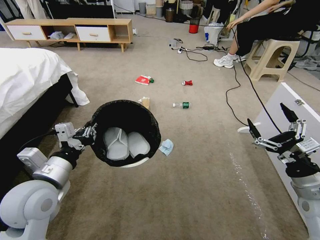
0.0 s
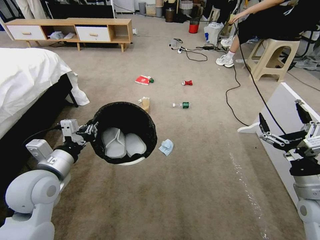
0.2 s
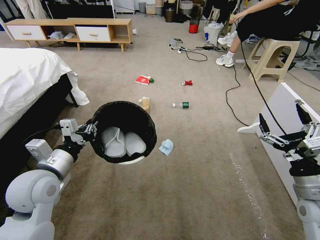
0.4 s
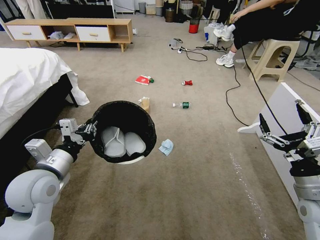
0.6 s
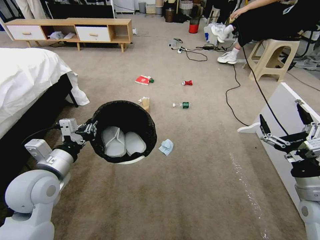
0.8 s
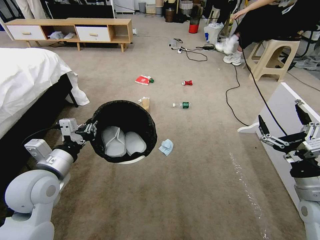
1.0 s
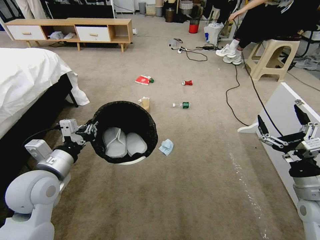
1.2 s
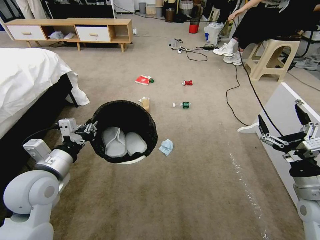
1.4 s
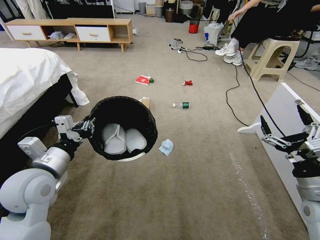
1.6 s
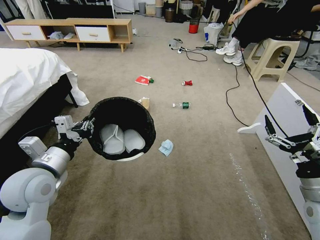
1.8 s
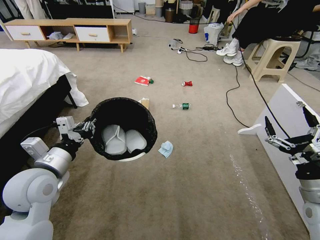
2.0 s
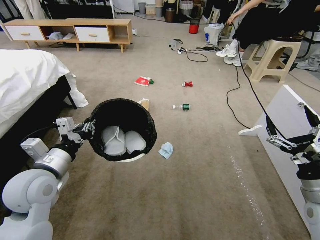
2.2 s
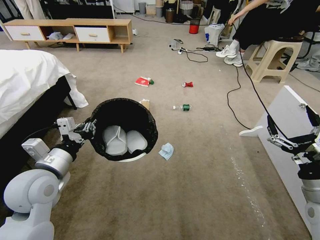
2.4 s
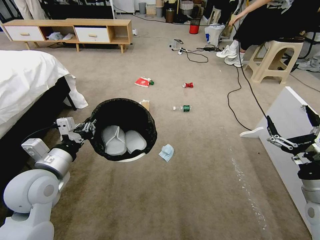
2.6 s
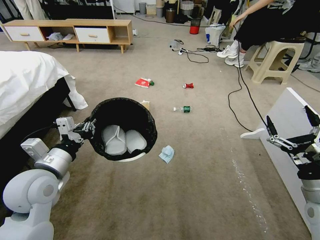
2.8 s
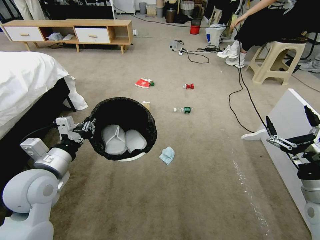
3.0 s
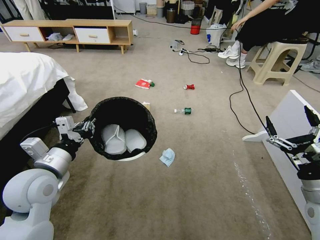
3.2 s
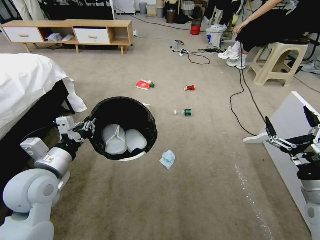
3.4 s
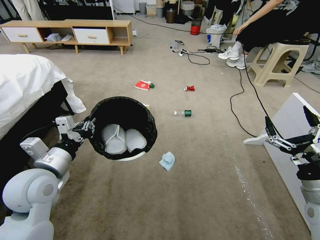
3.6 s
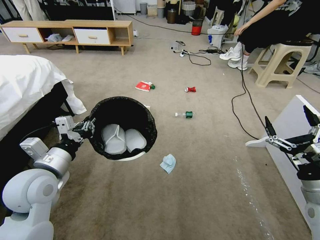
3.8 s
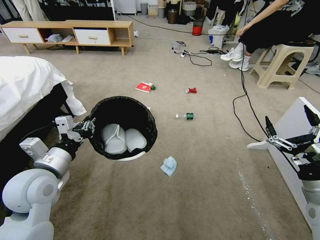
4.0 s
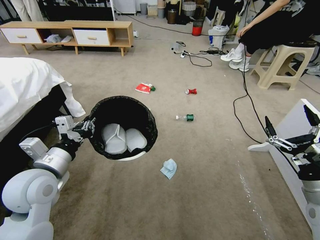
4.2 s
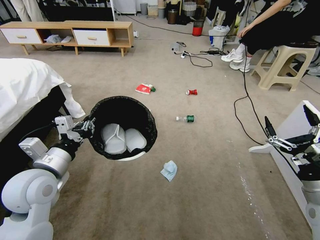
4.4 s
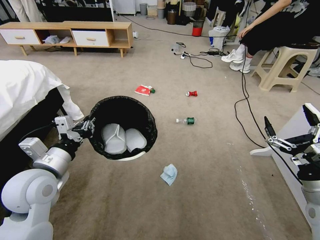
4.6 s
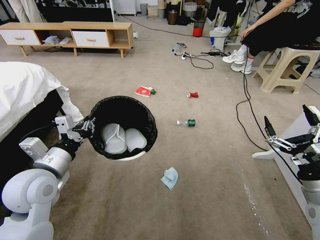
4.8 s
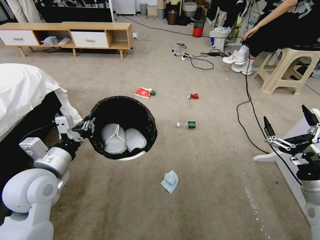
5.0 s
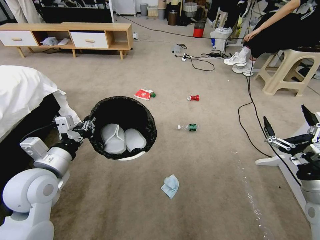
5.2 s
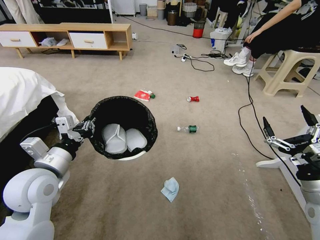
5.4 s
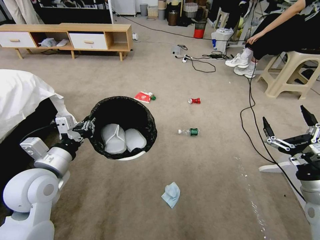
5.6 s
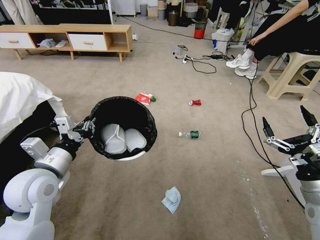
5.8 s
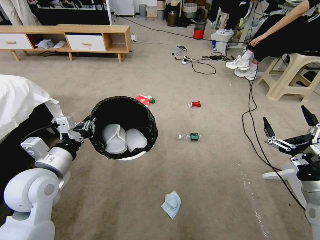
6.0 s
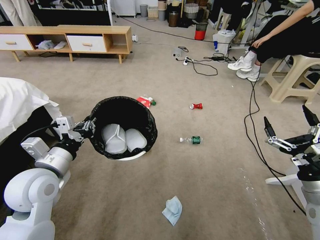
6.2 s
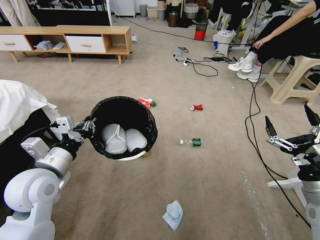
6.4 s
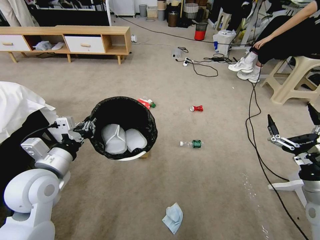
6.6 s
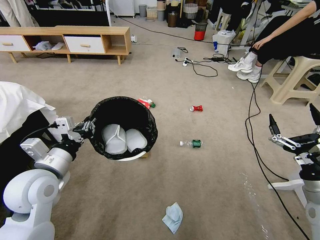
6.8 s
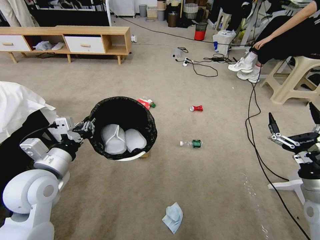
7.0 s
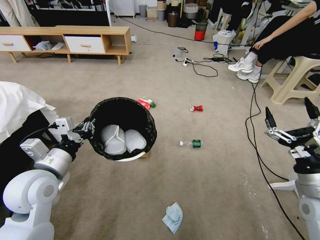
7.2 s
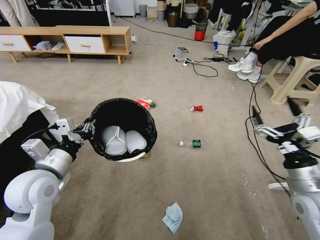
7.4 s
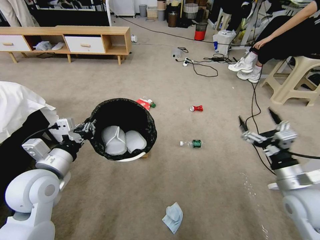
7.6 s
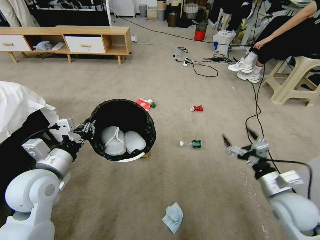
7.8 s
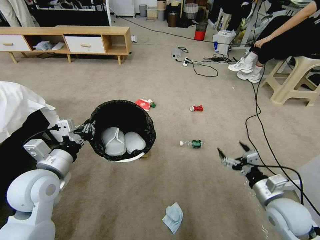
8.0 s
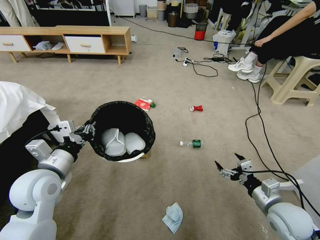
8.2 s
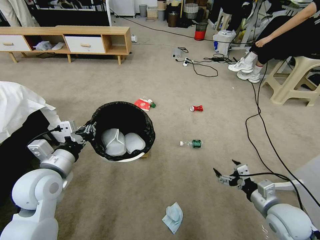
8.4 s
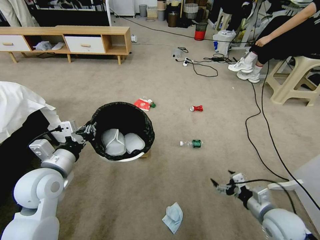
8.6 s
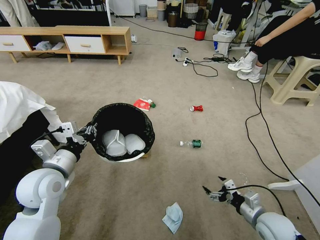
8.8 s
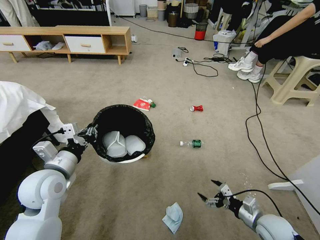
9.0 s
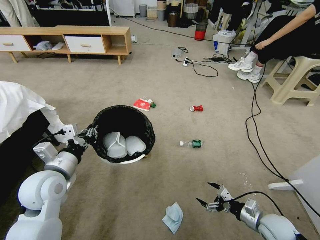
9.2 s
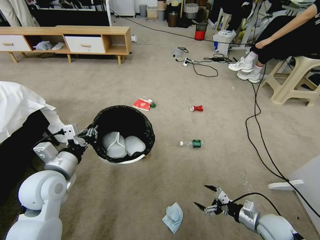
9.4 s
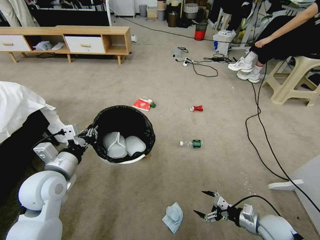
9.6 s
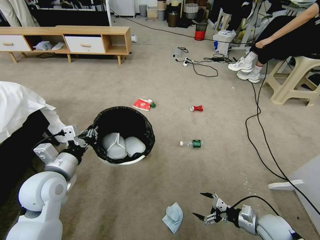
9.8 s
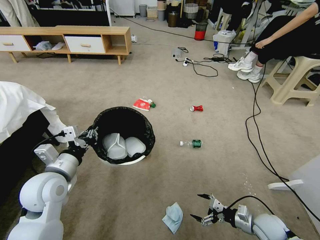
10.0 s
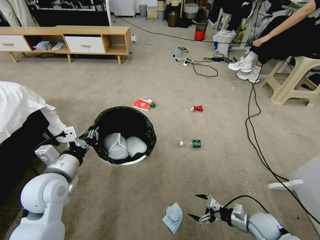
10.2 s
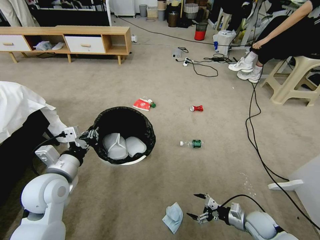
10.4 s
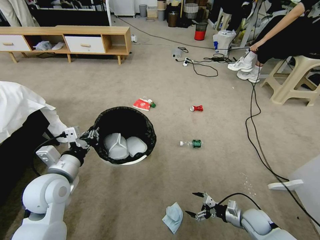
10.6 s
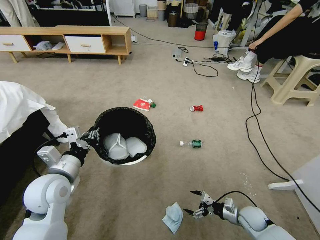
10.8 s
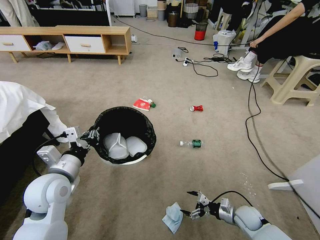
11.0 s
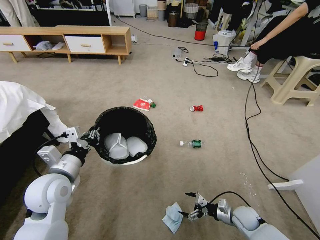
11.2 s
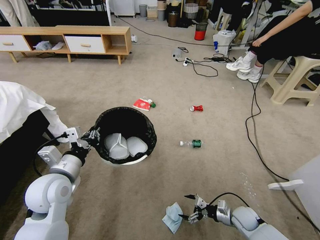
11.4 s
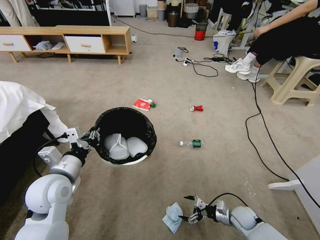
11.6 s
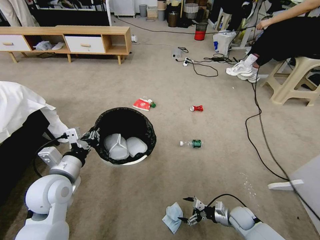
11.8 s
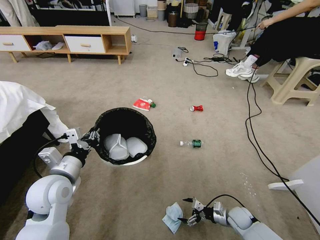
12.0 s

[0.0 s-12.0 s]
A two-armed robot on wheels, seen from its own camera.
Task of the whole recording: Pick up the trash bin and place the garbage on the floor into it.
1.6 to 3.0 s: Both grippers stay put.
6.0 to 7.6 s: The right gripper moves roughly 5 cm.
7.6 to 9.0 s: The right gripper goes about 15 cm downward.
9.0 to 10.4 s: The right gripper is displaced downward by some 5 cm.
10.4 to 12.0 s: The right gripper is displaced downward by approximately 5 cm.

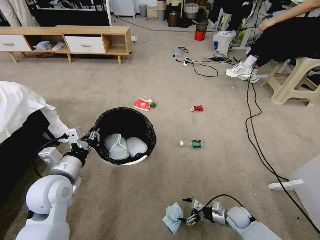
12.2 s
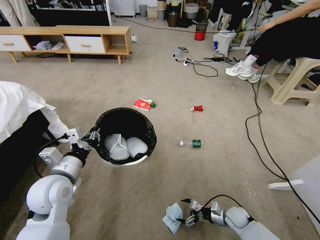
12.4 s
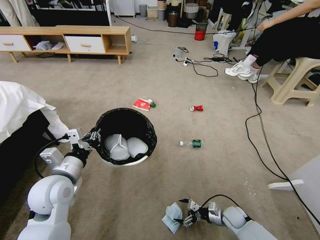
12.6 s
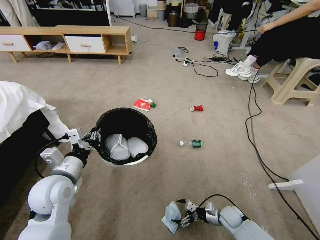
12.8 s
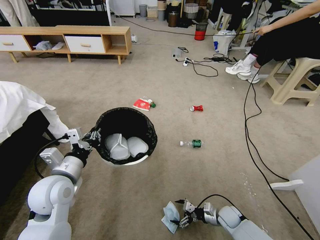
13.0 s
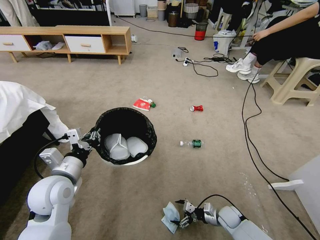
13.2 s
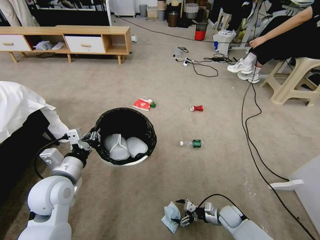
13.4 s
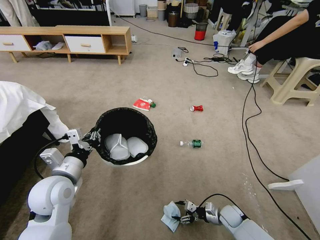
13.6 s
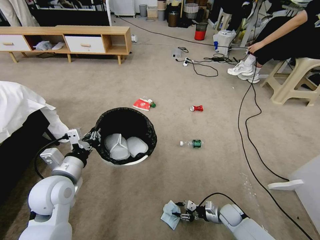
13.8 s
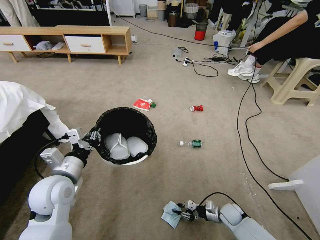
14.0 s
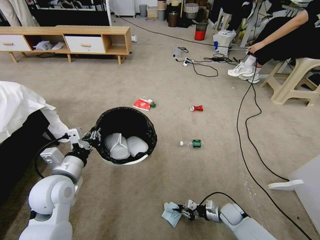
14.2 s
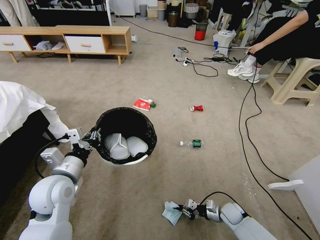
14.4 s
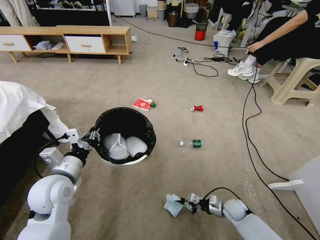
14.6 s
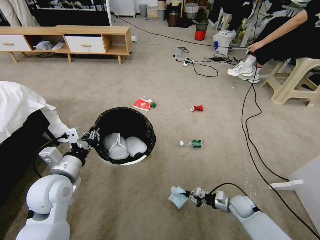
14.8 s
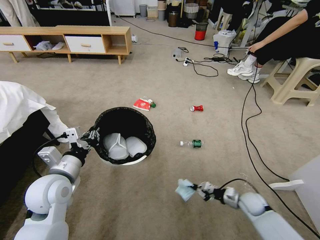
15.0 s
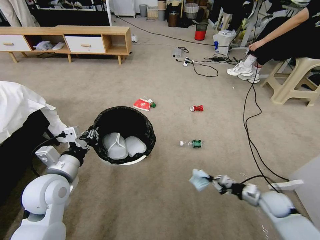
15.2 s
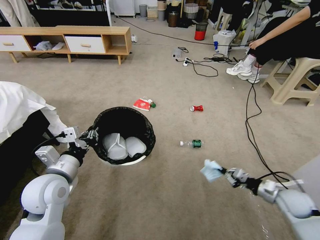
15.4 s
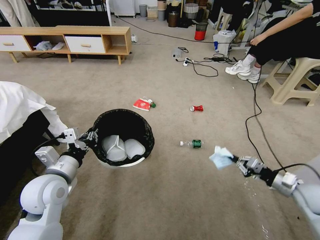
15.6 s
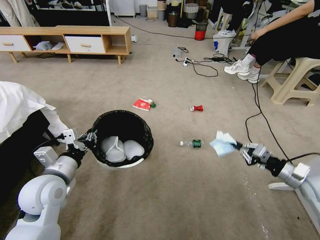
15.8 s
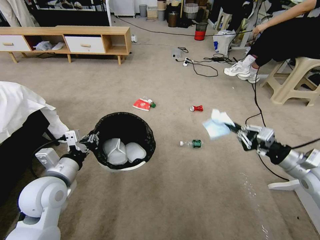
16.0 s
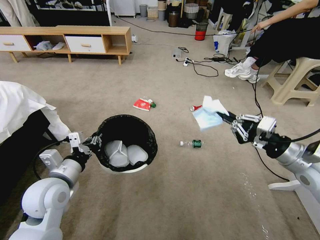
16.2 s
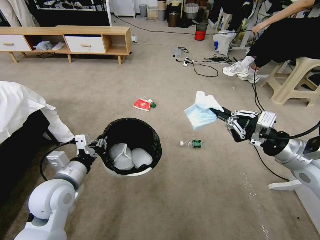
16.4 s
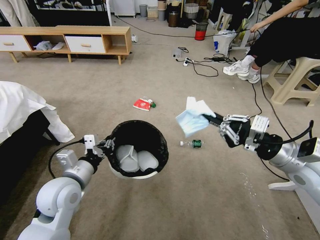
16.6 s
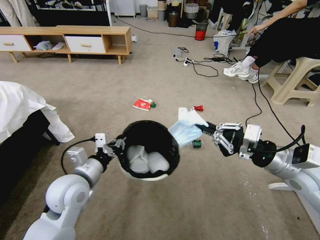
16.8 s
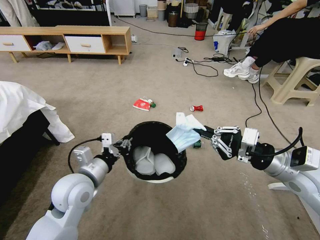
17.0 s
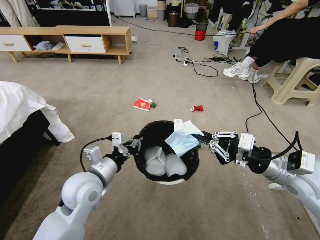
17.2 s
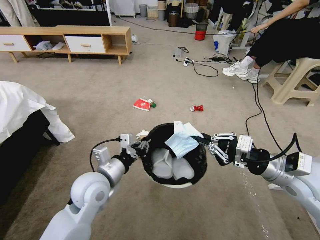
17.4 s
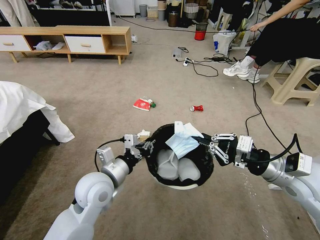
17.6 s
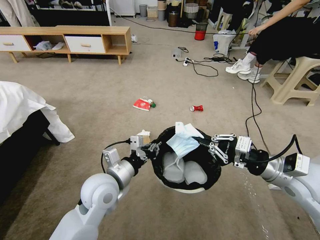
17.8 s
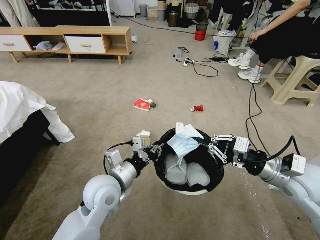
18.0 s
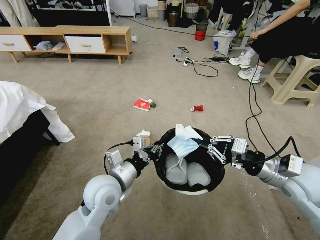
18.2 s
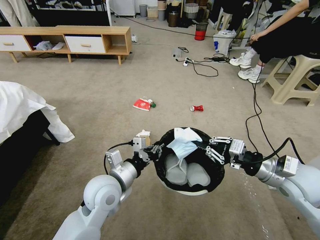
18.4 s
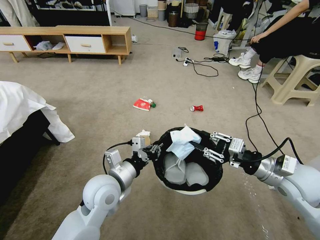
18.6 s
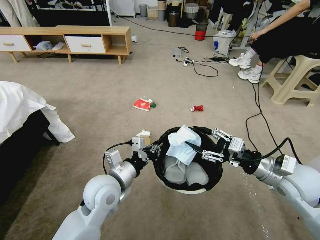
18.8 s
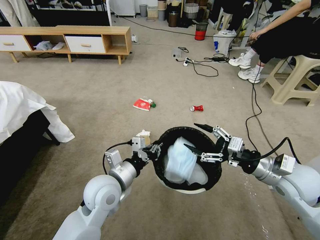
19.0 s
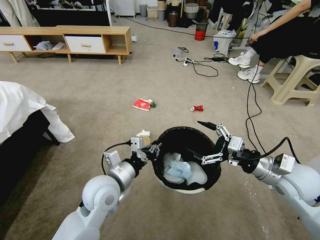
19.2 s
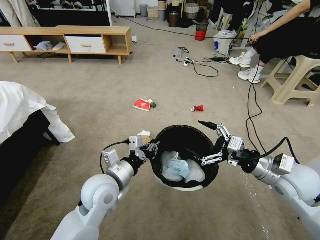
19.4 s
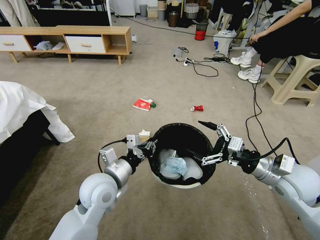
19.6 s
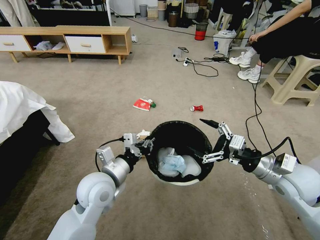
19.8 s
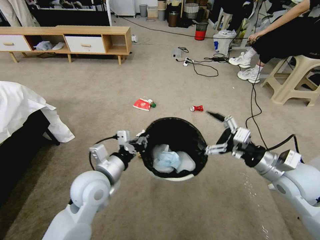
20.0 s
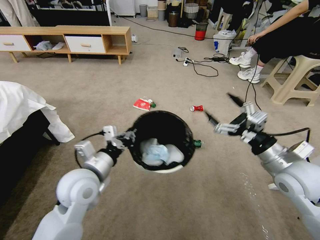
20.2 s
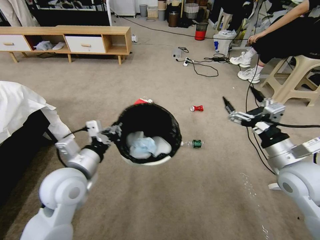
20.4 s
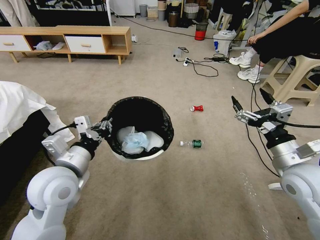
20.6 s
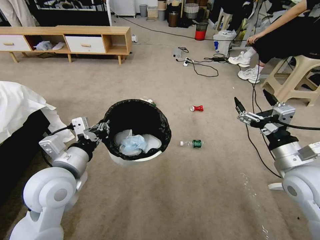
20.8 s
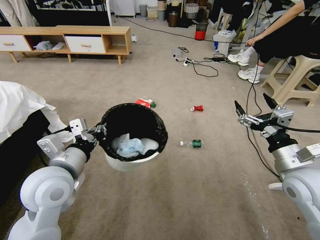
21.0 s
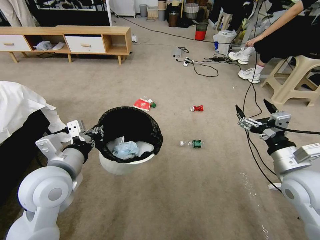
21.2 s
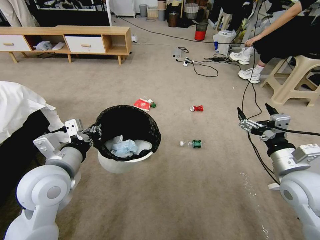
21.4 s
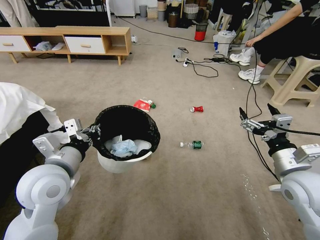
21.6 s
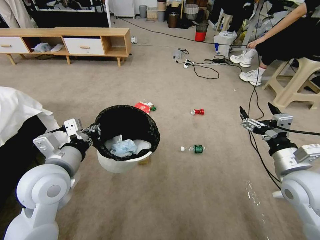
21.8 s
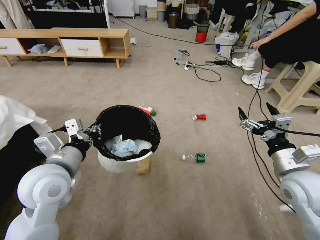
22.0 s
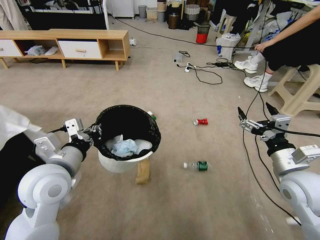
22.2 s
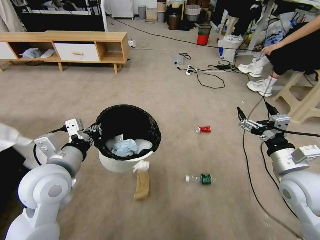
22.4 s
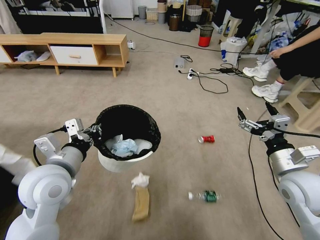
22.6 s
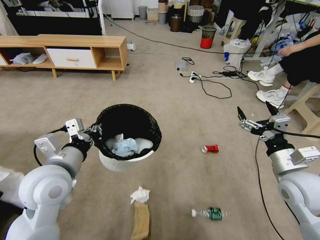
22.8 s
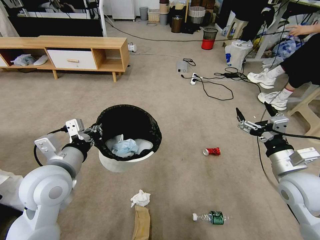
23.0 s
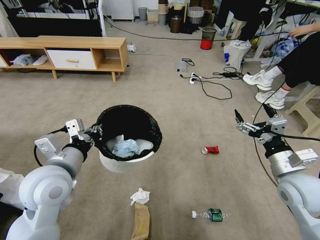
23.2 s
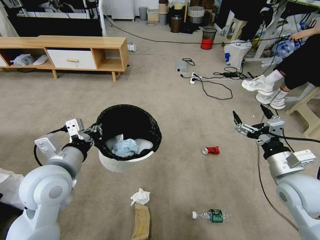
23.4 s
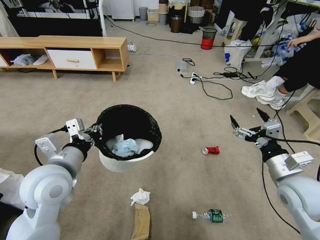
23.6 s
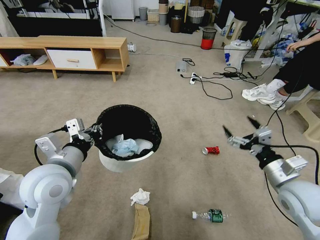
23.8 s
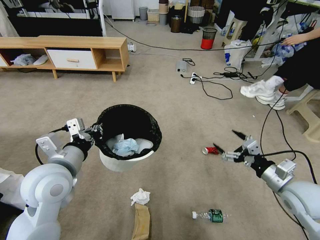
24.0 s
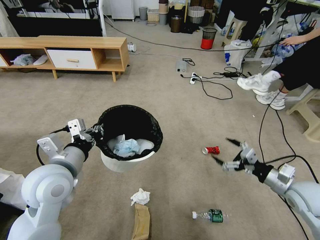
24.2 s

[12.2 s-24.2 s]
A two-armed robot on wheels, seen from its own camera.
Task of the whole recording: Pick up the trash bin and place the garbage on the floor into it.
12.2 to 13.8 s: The right gripper closes.
13.8 to 15.2 s: The right gripper goes roughly 15 cm upward and to the right, and closes its fingers.
15.2 to 16.6 s: The right gripper heads upward, covering roughly 30 cm.
16.6 to 18.2 s: The left gripper heads to the right, covering roughly 10 cm.
18.2 to 19.8 s: The right gripper opens its fingers.
19.8 to 21.2 s: The left gripper is displaced to the left and upward by about 10 cm.
22.6 to 24.2 s: The right gripper heads to the right and downward, covering about 10 cm.
